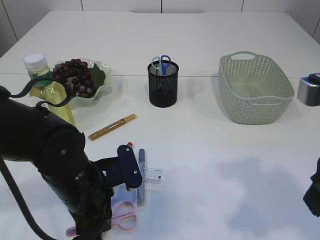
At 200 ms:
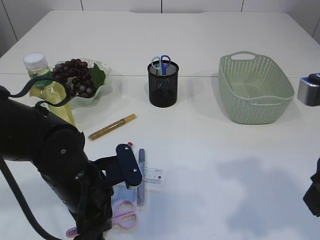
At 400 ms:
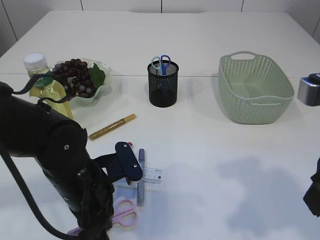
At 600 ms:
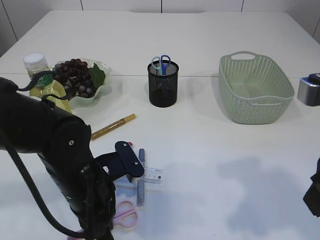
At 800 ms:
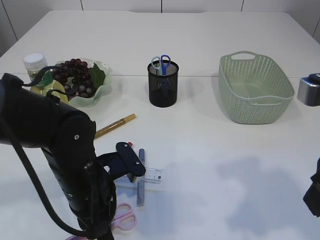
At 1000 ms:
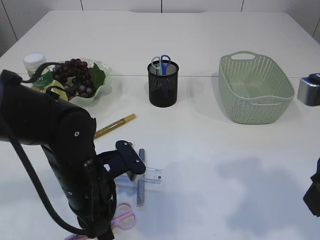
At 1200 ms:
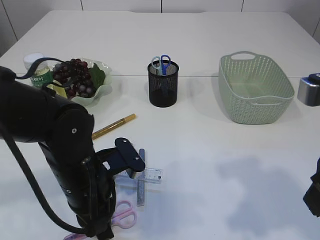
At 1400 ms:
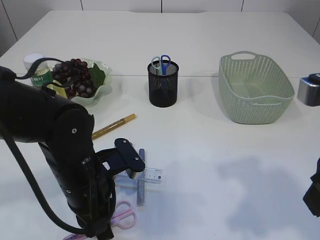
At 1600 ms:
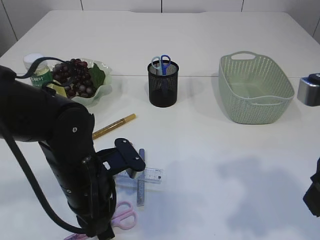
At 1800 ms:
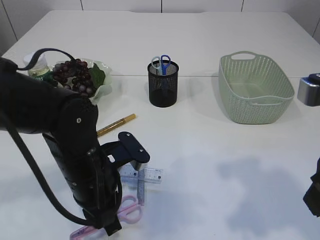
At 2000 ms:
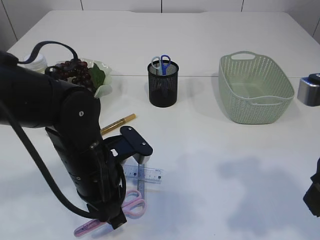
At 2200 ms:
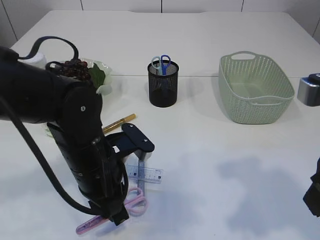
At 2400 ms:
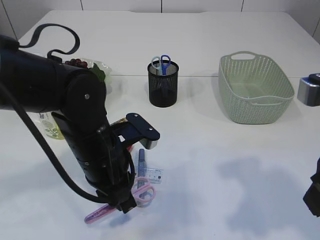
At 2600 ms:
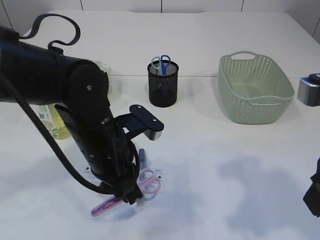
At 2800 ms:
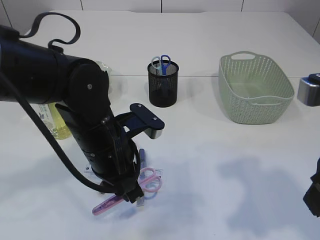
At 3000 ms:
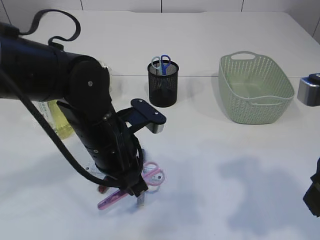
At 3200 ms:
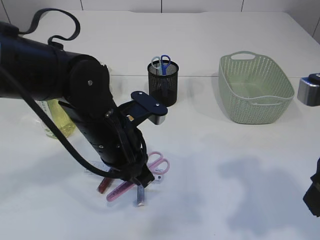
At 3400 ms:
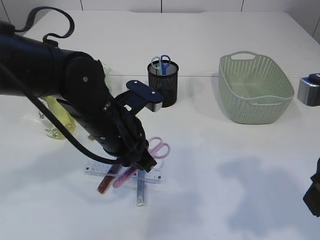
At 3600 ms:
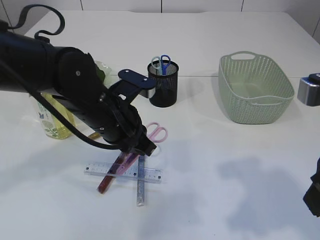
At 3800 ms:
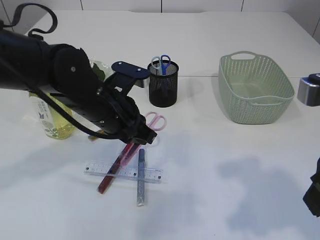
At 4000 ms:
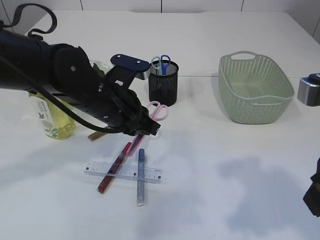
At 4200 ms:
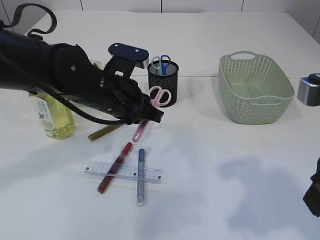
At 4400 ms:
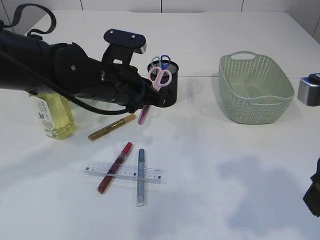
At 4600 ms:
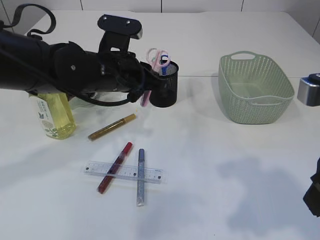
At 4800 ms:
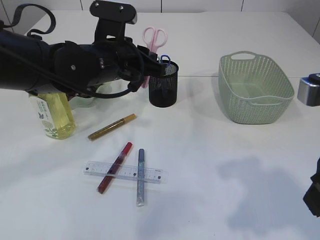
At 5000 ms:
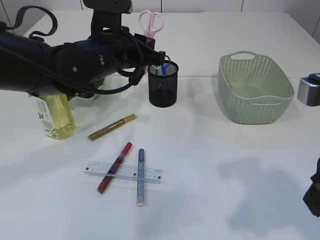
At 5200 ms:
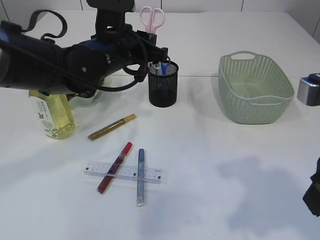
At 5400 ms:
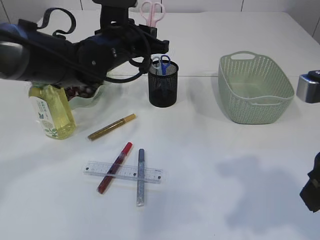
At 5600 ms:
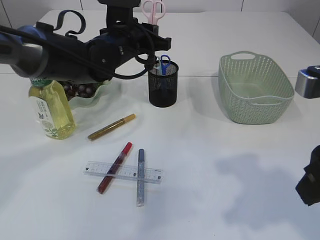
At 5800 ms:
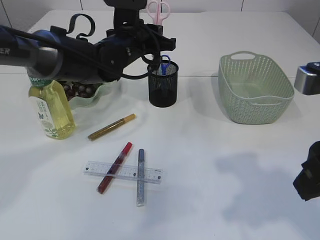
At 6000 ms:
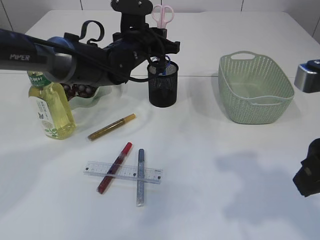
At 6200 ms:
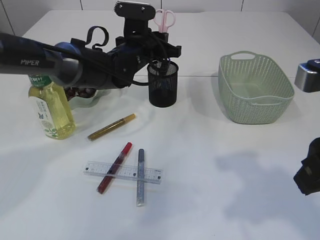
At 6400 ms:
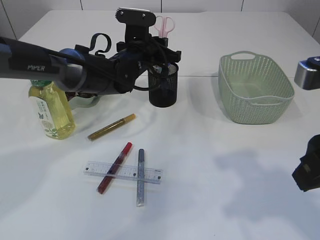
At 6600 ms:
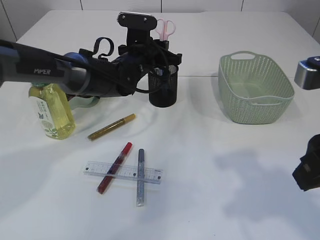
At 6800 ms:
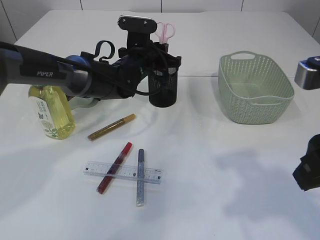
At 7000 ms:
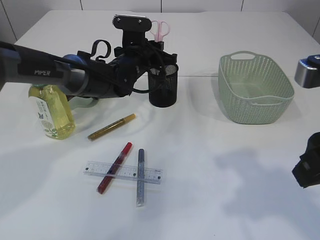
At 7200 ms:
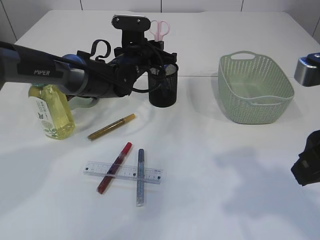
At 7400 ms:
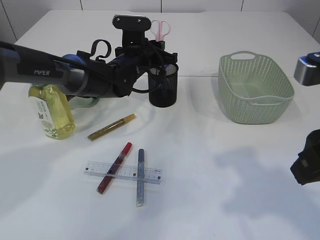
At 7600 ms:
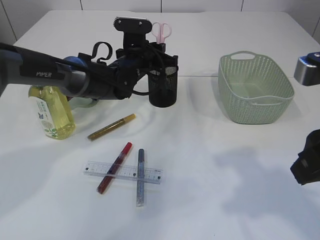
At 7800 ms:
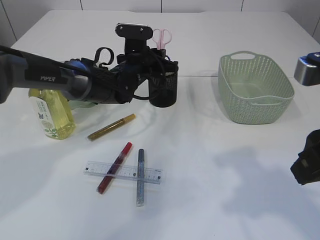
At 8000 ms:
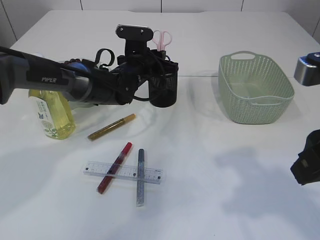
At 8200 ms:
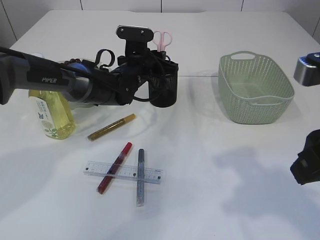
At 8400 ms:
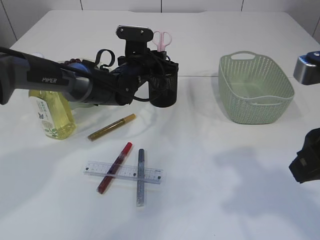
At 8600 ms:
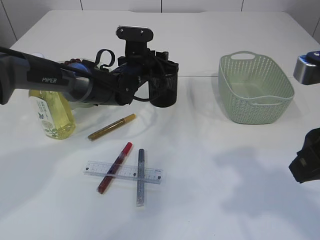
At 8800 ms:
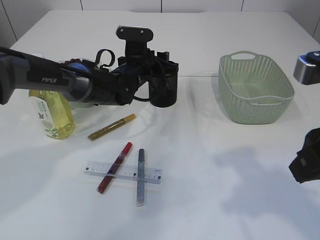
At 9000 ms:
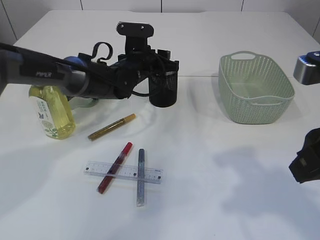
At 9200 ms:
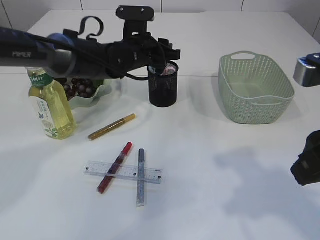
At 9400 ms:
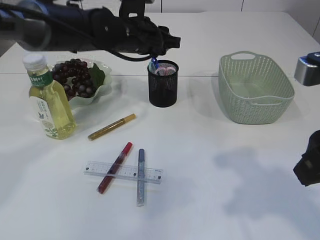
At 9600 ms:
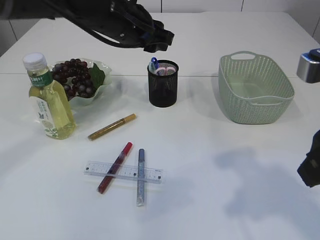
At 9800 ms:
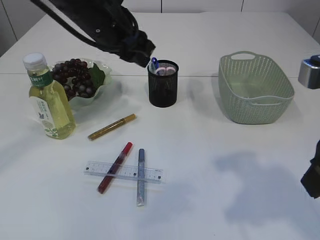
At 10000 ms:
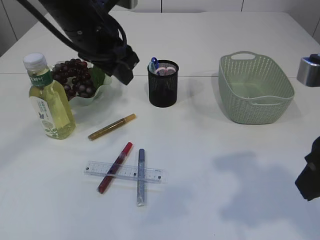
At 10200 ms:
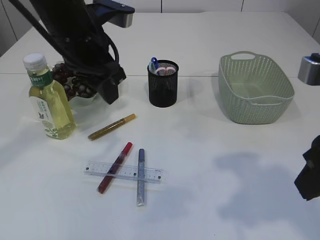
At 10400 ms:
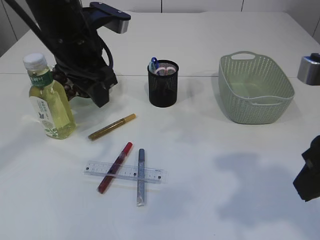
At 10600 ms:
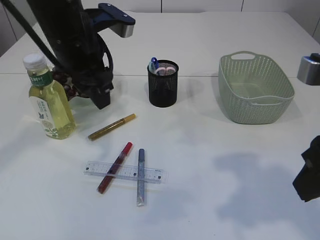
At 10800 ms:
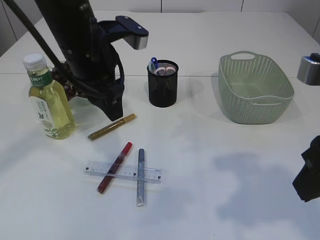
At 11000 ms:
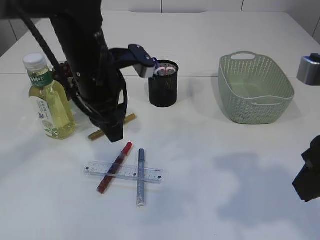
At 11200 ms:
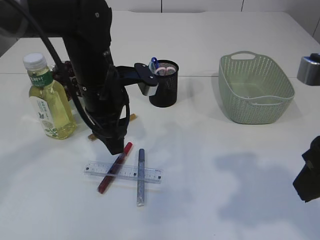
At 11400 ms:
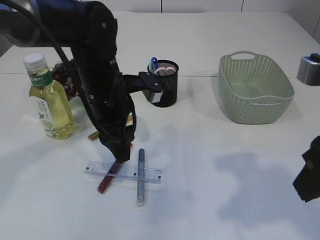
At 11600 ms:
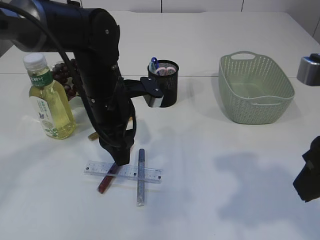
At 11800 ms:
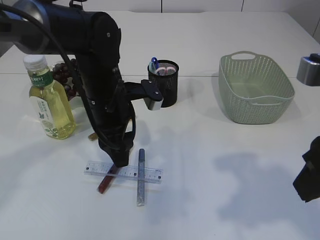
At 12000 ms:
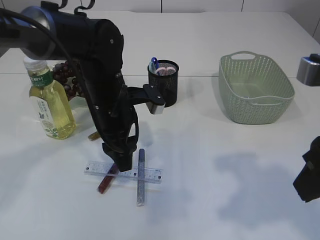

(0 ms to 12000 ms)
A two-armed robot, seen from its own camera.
Step, 0 ms - 2600 ms: pick up the pink scissors.
Step, 2800 ms - 9400 ms: Place the pink scissors into the pen holder.
0 ms - 1600 ms: The grippers make only small movements.
1600 ms - 3000 ms: The left gripper ends up roughly 5 cm from where it was.
3000 ms - 4400 ms: The left gripper heads forward, covering approximately 10 cm.
4400 ms - 6000 ms: The left gripper moves forward, roughly 10 cm.
6000 ms - 7600 ms: The grippers move only a little.
7600 ms - 9000 ms: The left gripper opens.
9000 ms - 10400 ms: The left gripper shifts about 20 cm upward, backward and to the left.
10400 ms - 12000 ms: The left gripper goes roughly 10 cm downward.

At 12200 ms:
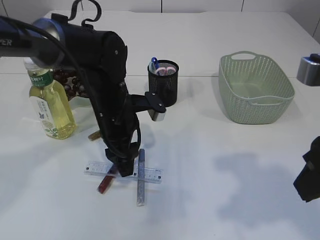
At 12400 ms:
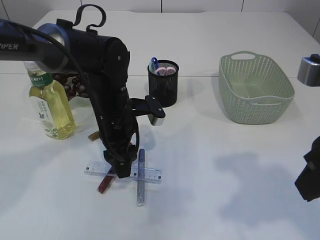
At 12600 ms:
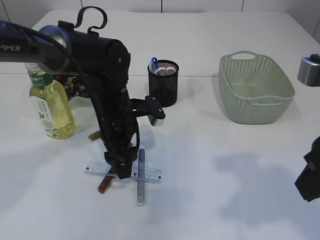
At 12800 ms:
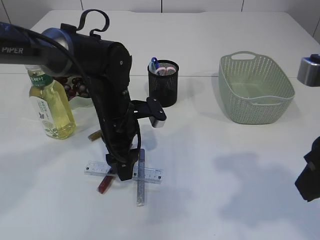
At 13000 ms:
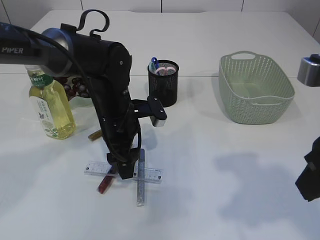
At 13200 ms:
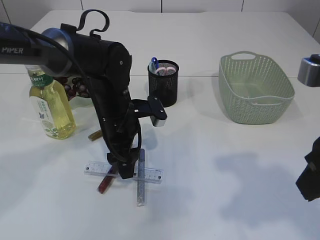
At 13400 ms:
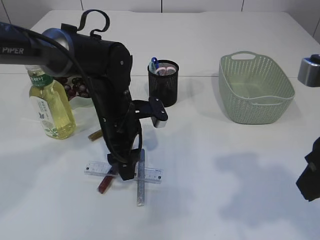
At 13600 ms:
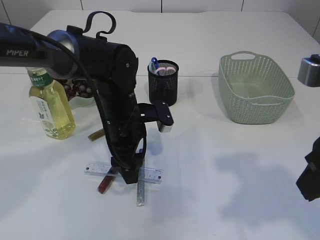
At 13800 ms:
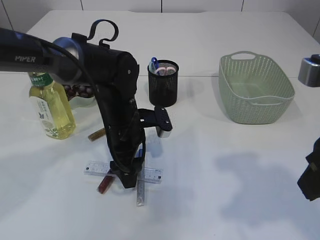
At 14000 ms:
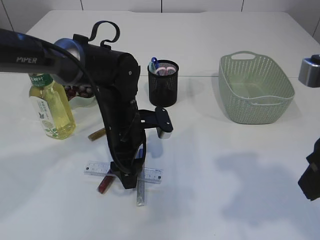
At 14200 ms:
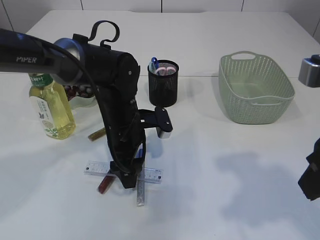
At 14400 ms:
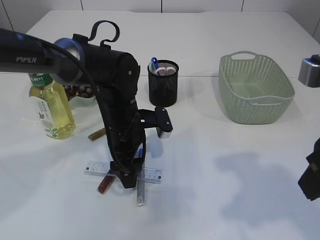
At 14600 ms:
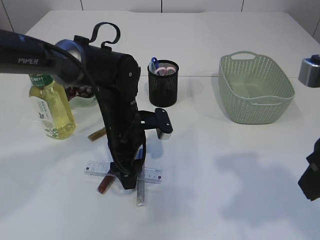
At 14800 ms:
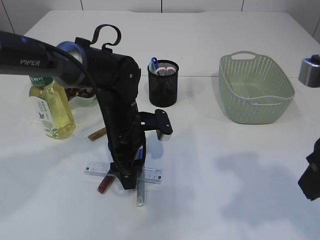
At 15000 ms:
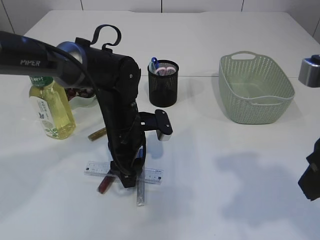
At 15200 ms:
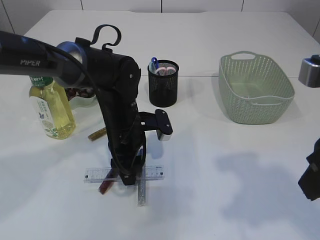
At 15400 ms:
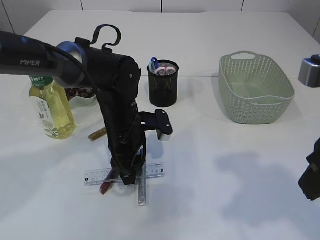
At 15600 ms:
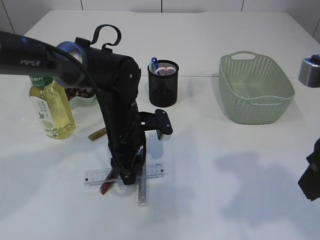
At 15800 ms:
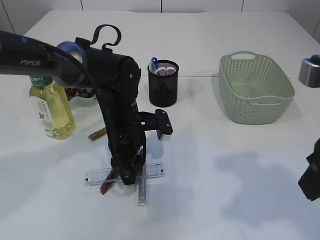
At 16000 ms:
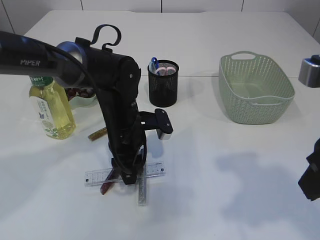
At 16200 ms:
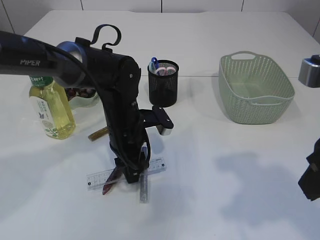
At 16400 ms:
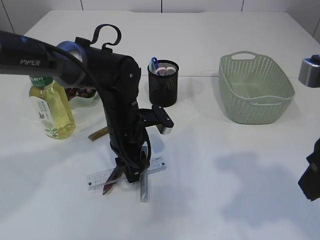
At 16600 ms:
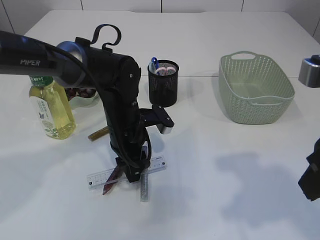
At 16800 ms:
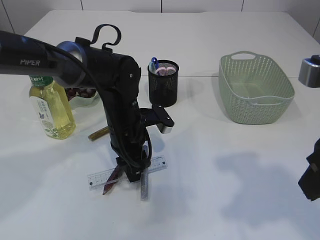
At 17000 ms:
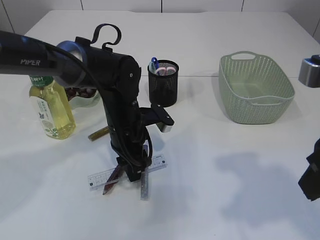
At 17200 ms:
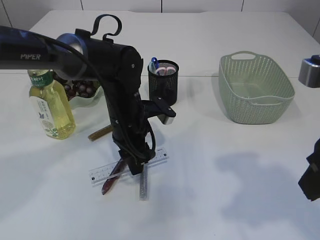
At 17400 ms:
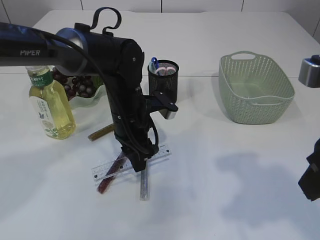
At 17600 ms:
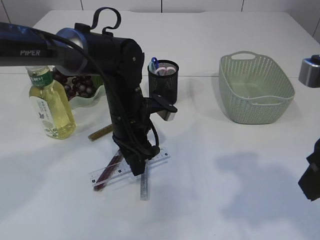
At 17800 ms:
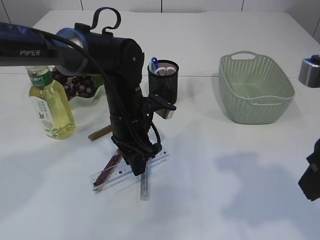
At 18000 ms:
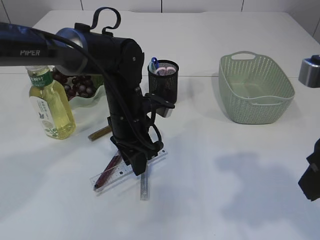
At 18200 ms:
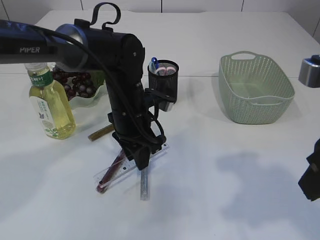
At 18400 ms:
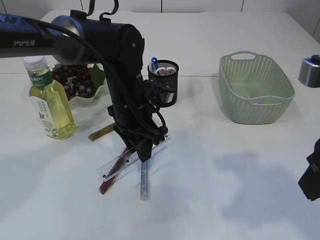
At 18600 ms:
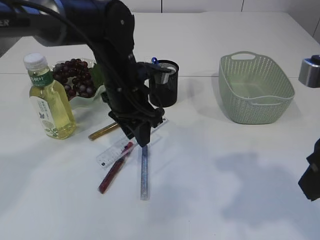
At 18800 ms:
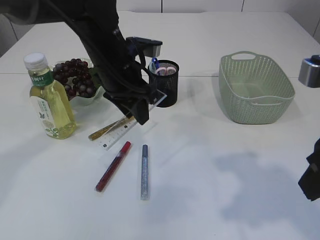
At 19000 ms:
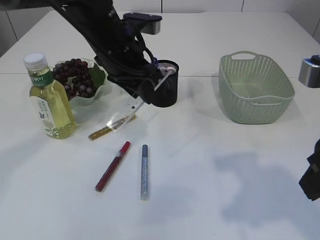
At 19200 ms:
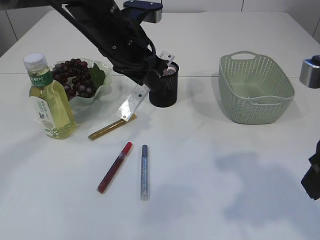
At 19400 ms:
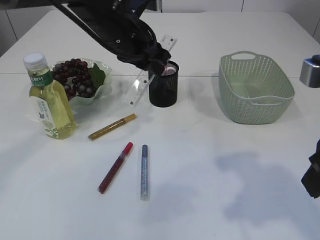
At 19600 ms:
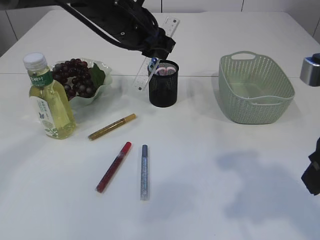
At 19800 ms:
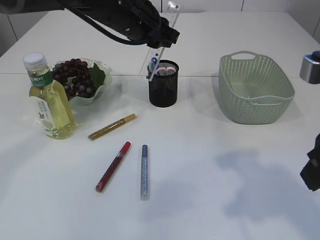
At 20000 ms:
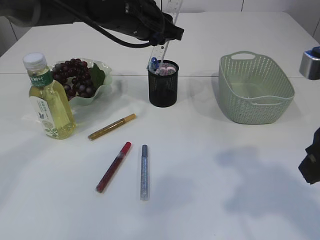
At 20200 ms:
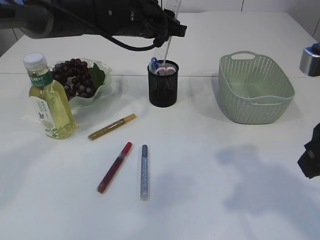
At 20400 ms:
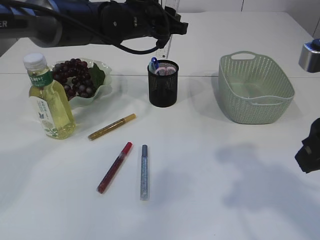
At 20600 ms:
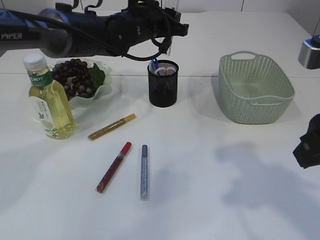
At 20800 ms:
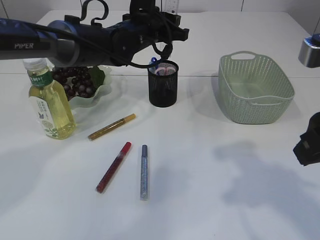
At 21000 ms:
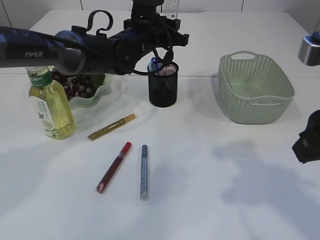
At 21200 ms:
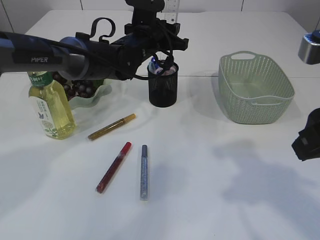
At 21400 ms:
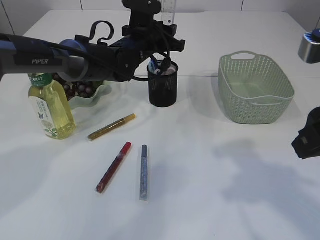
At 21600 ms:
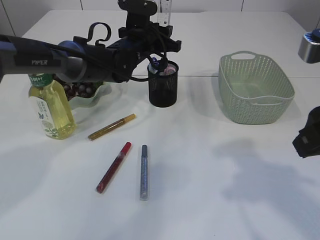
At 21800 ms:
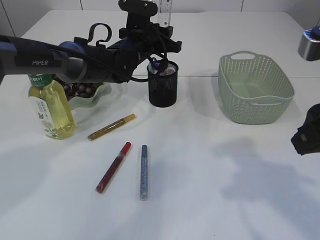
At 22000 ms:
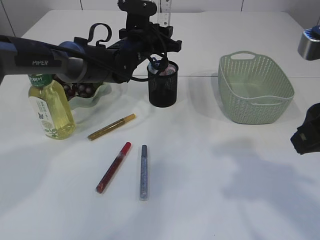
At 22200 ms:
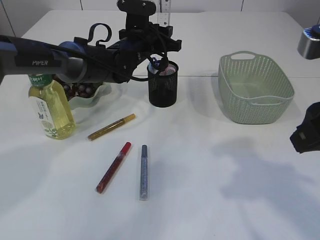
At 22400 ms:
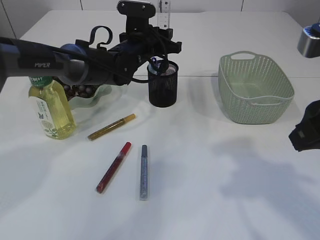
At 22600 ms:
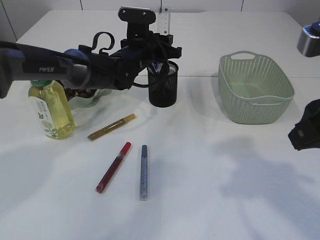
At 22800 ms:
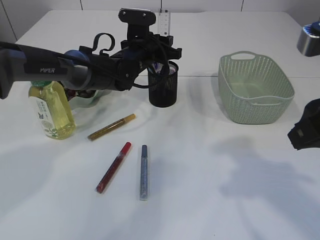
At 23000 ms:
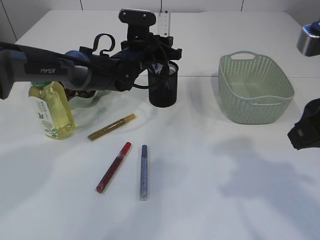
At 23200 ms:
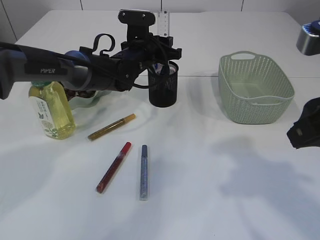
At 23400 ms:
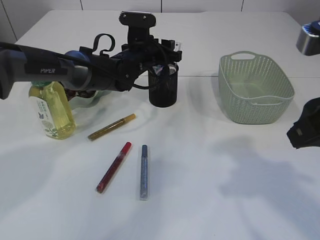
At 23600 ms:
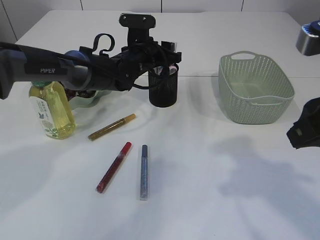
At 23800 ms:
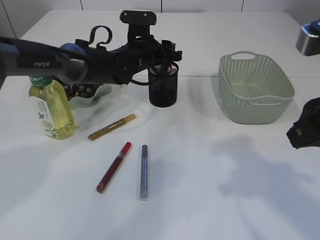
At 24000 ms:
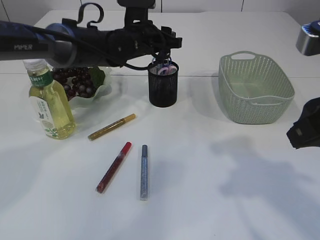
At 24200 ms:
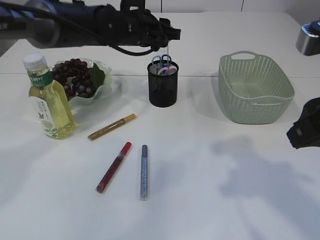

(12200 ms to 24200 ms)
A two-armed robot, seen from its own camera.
Step, 12200 ms - 18600 ms: pick up the ruler.
12200 ms - 13800 ms: There are only small adjustments of the grippers.
13800 ms - 15200 ms: The left gripper closes its fingers.
15200 ms - 16600 ms: There are only small adjustments of the grippers.
18200 ms - 19800 ms: The left gripper heads upward and forward, covering approximately 15 cm.
19800 ms - 21200 ms: The left gripper is displaced downward and forward by about 10 cm.
21200 ms - 22600 ms: The grippers move only a little.
22600 ms - 24200 ms: The left gripper moves upward, about 5 cm.
